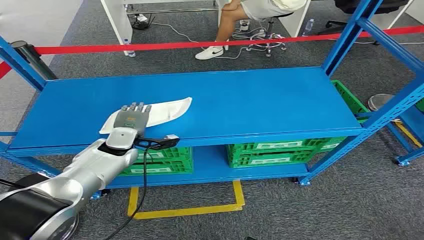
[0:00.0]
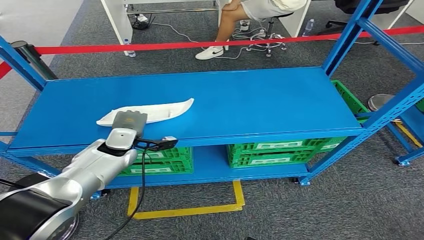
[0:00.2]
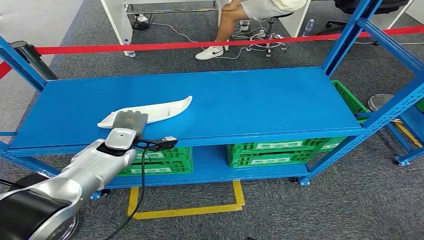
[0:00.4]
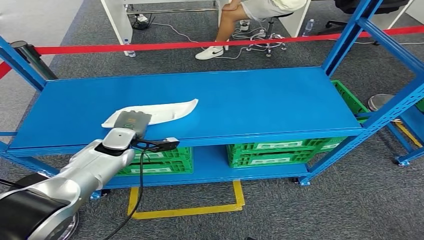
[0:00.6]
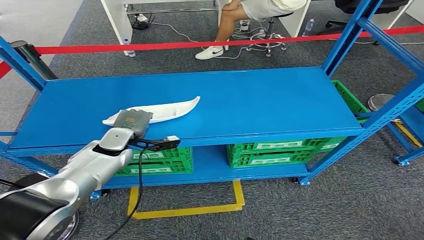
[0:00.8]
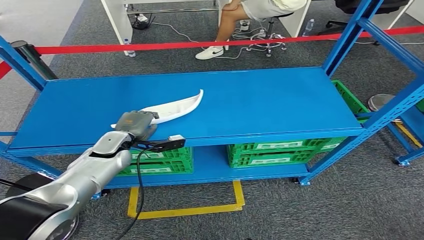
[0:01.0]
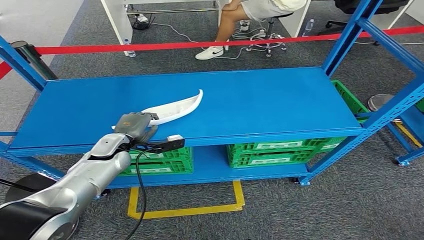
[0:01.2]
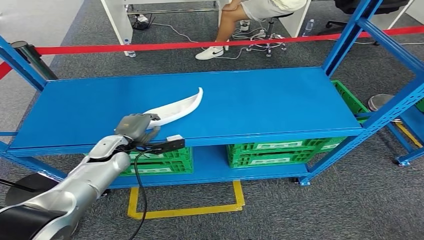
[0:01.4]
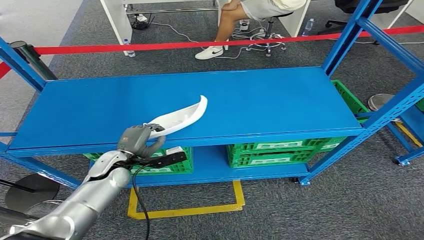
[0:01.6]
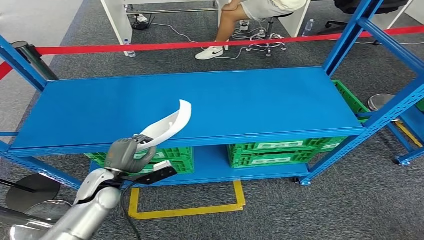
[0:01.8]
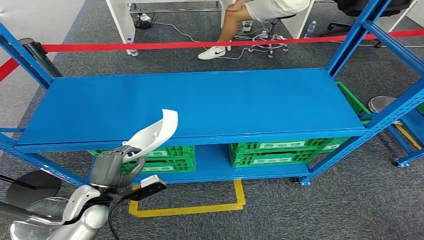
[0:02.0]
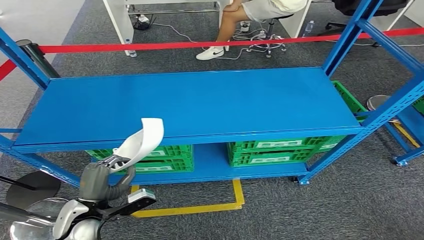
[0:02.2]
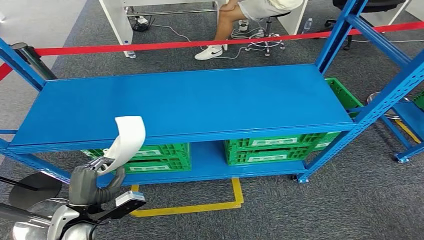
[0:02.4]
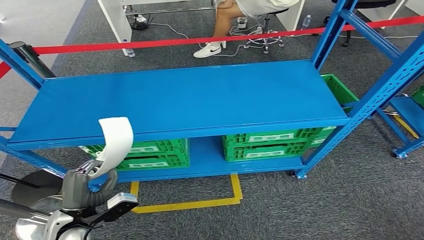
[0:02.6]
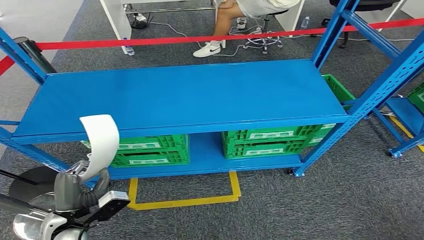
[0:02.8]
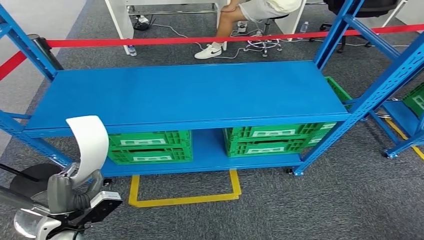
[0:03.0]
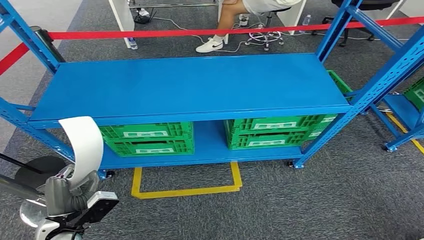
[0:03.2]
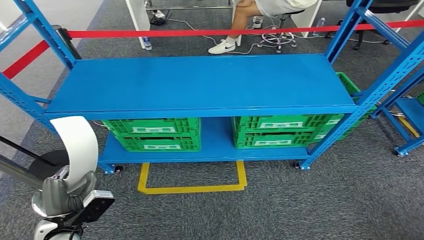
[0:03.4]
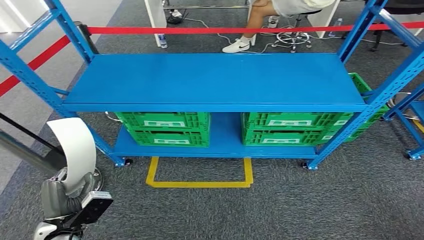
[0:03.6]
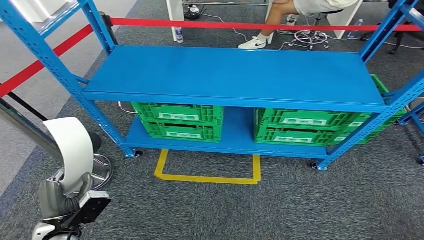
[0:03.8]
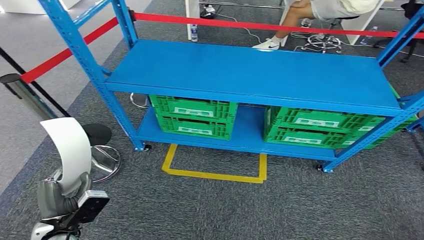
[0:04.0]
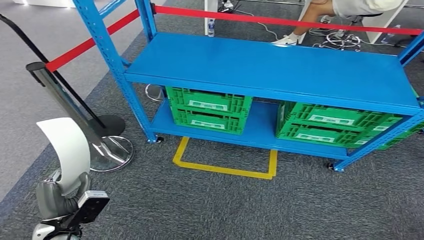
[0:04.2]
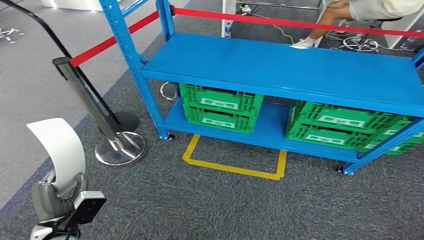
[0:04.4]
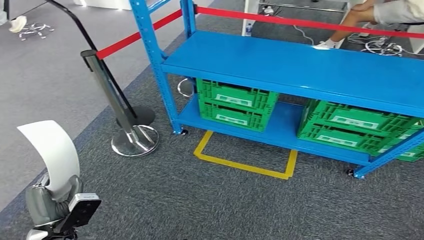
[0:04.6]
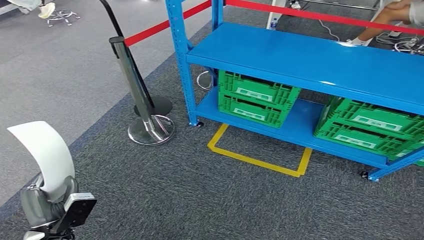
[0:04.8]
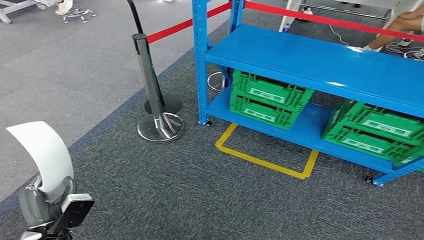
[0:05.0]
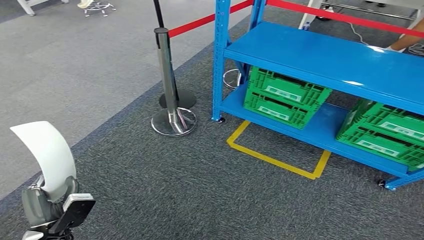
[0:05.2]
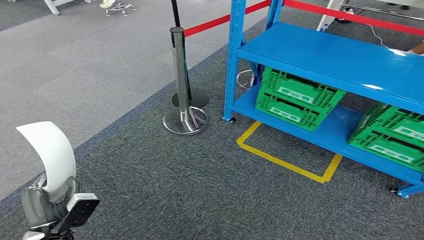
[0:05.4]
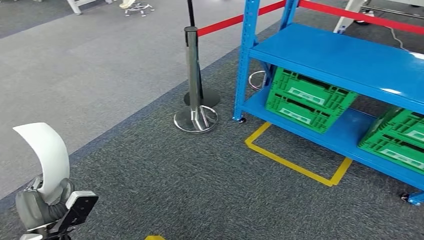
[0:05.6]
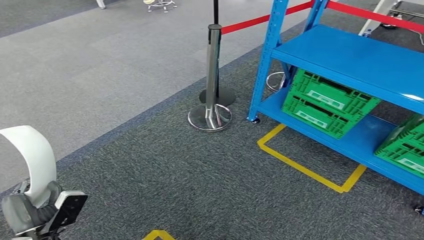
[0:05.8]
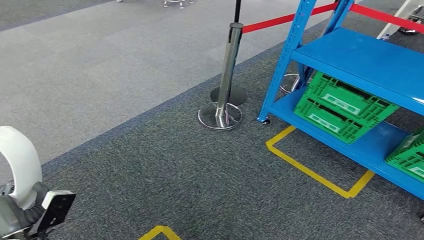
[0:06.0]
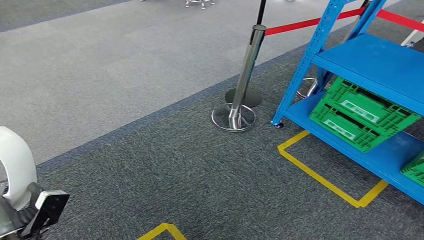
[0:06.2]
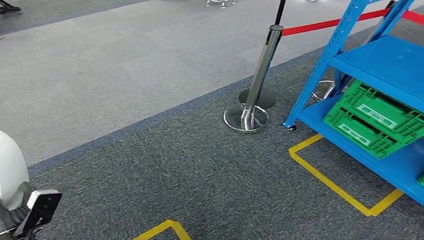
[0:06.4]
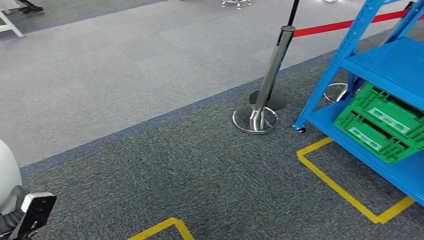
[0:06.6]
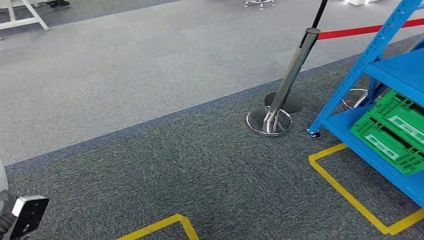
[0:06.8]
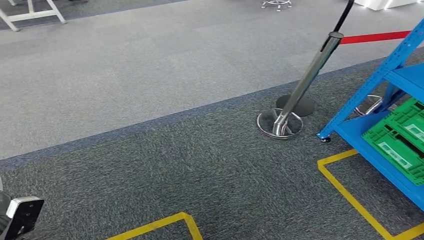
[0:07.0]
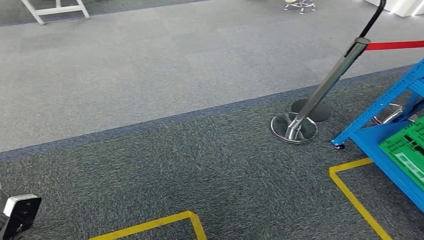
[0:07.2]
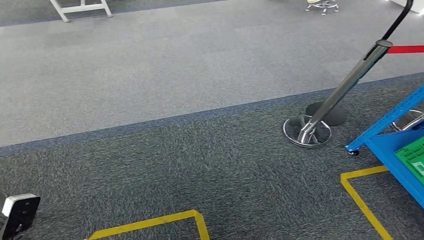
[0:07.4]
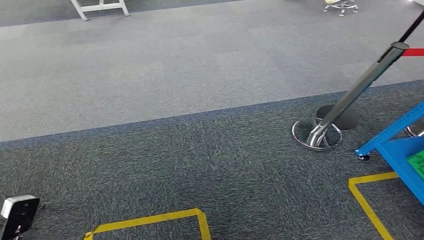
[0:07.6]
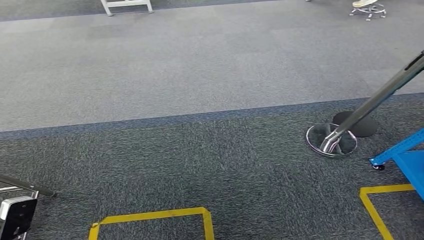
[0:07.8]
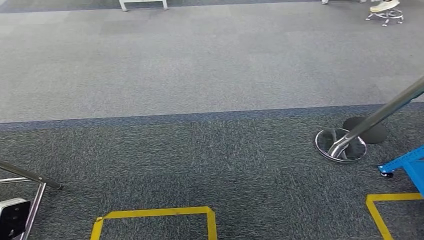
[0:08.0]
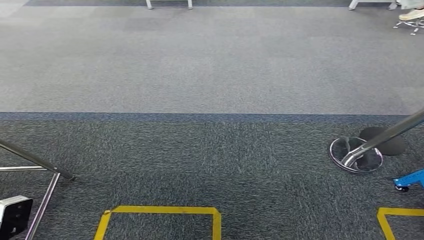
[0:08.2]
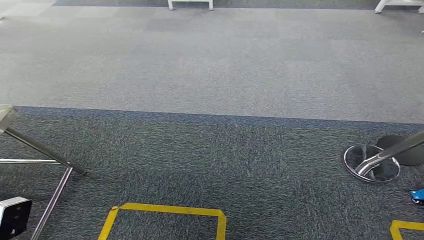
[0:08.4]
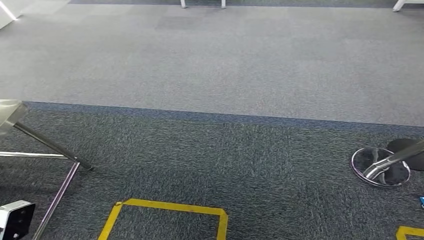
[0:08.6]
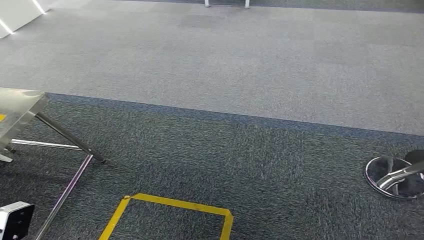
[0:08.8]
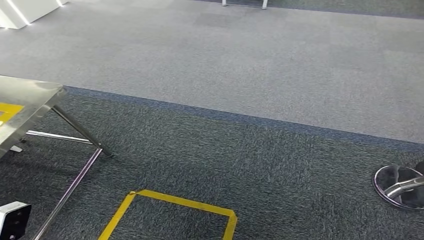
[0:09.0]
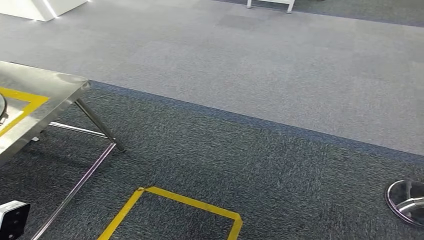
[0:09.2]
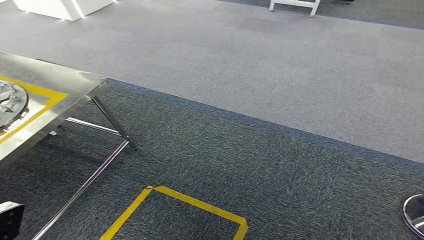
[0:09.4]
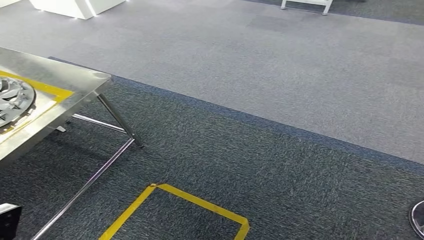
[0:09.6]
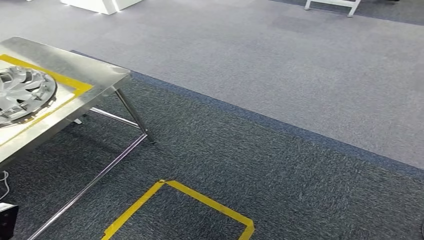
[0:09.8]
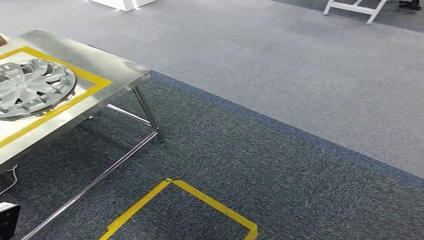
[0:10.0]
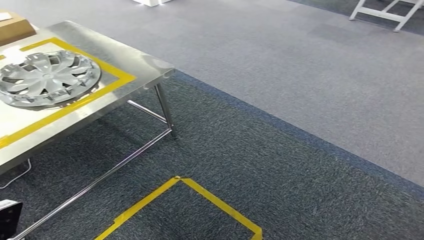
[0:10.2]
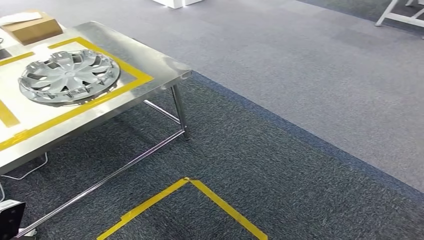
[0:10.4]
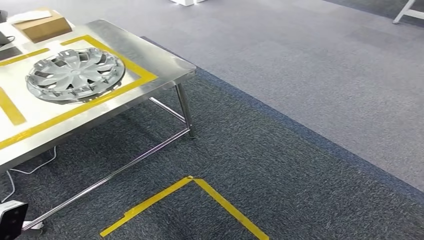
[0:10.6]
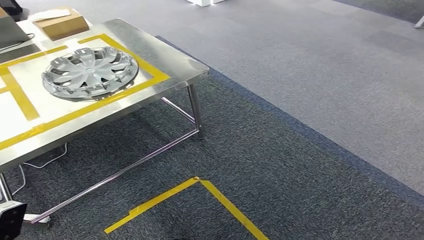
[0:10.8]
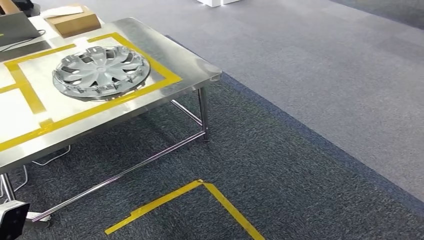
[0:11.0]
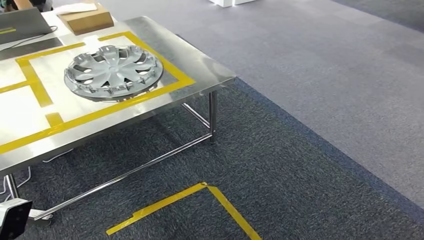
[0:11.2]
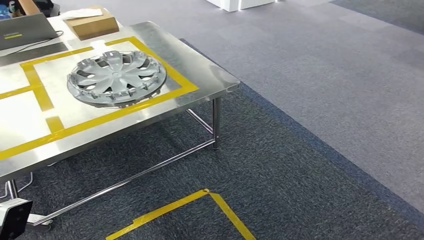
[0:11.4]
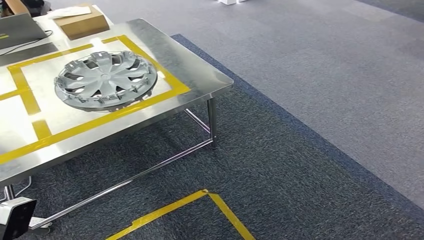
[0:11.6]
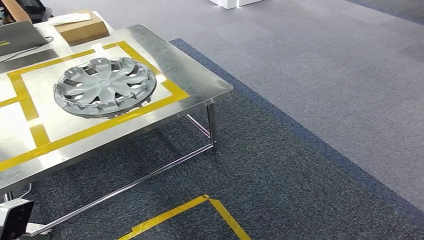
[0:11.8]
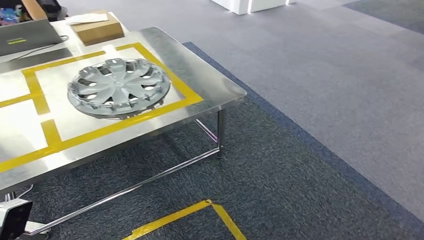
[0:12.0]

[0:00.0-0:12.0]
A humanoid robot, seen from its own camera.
Step, 0:00.0 to 0:02.2: Take small components from the rack.

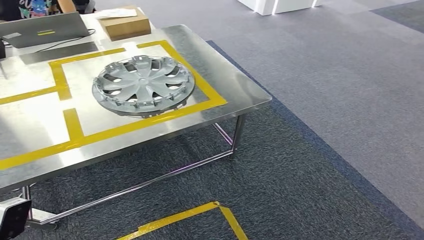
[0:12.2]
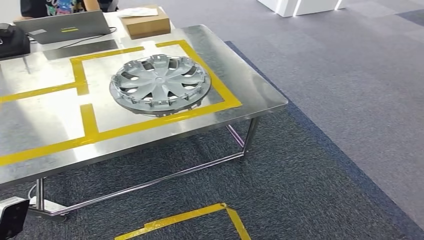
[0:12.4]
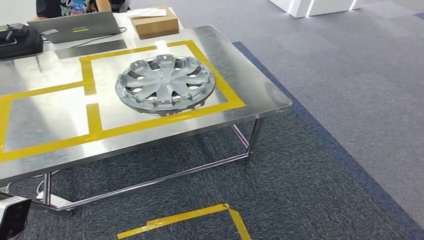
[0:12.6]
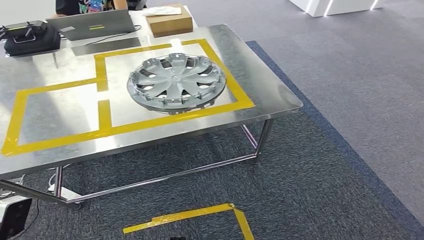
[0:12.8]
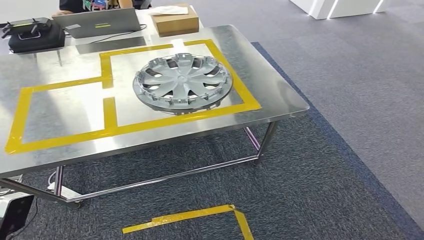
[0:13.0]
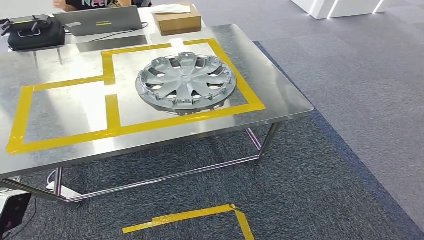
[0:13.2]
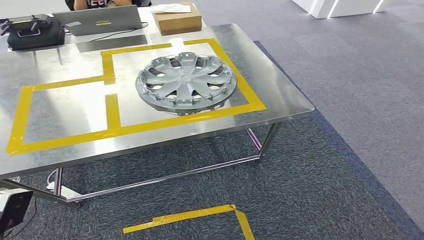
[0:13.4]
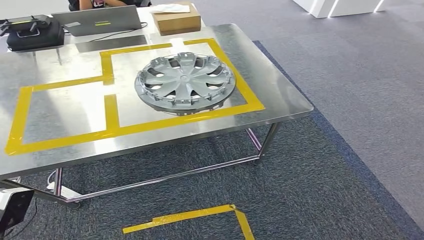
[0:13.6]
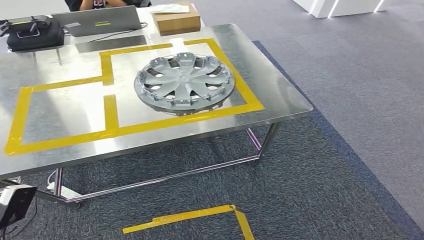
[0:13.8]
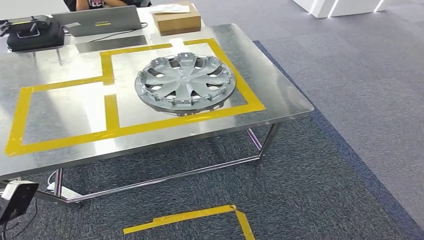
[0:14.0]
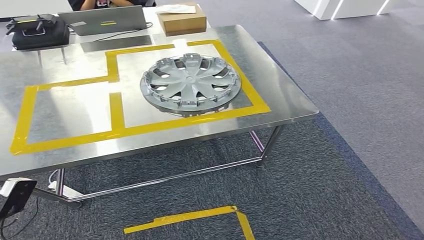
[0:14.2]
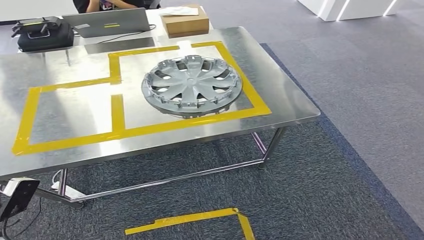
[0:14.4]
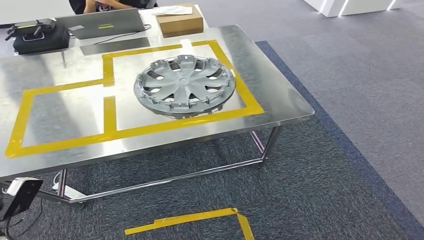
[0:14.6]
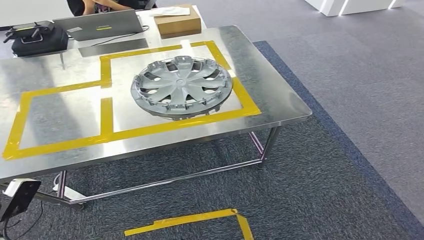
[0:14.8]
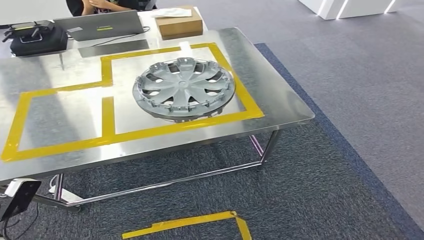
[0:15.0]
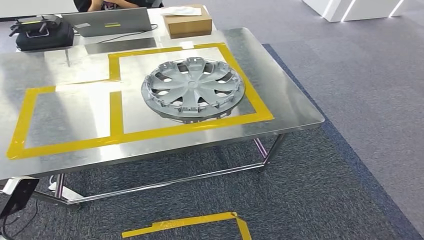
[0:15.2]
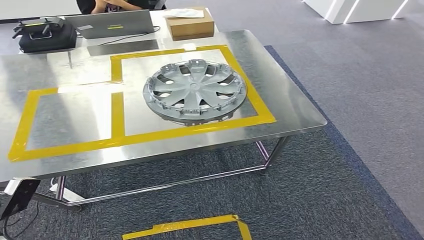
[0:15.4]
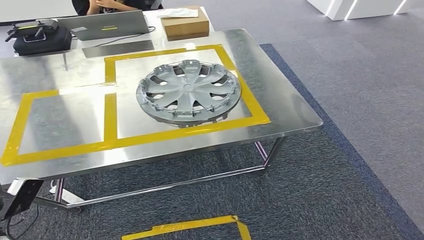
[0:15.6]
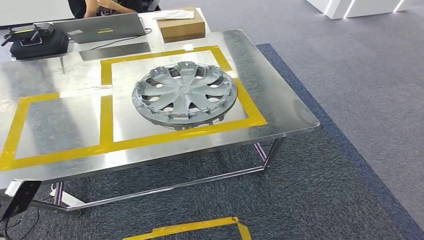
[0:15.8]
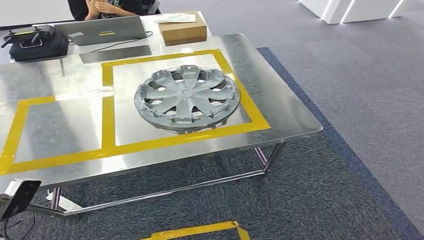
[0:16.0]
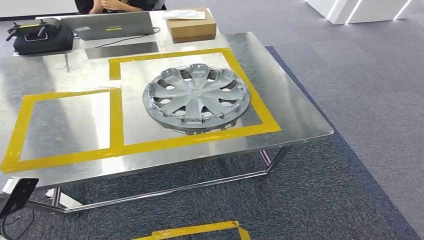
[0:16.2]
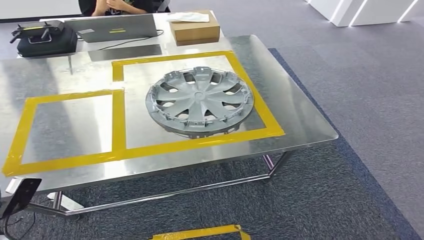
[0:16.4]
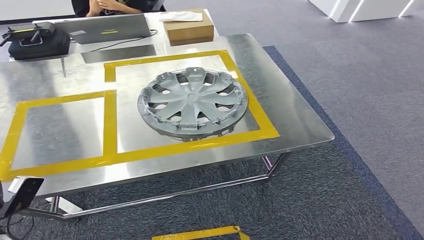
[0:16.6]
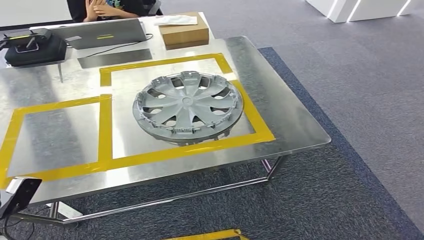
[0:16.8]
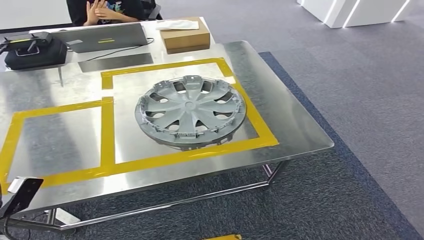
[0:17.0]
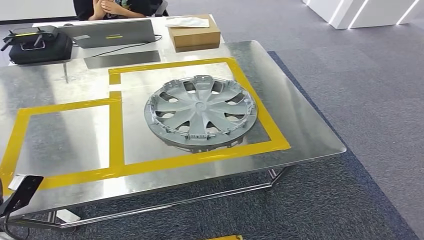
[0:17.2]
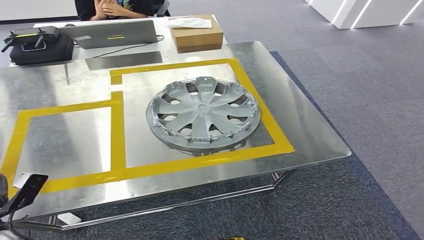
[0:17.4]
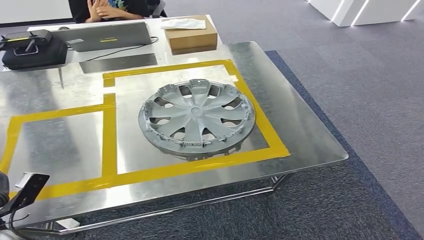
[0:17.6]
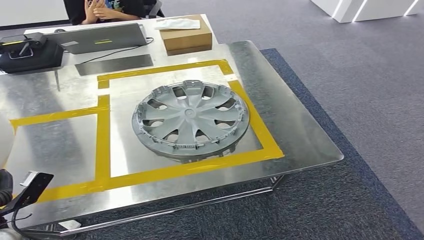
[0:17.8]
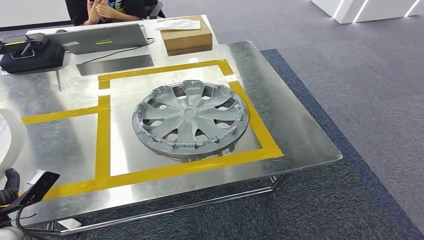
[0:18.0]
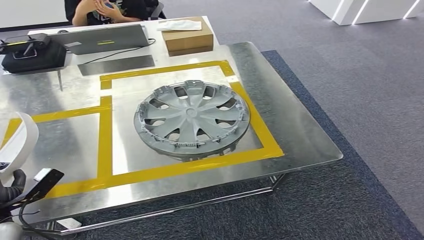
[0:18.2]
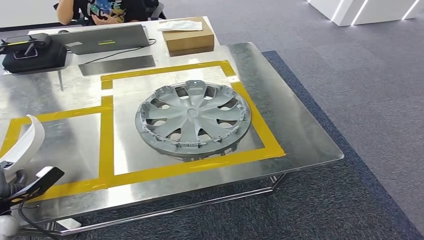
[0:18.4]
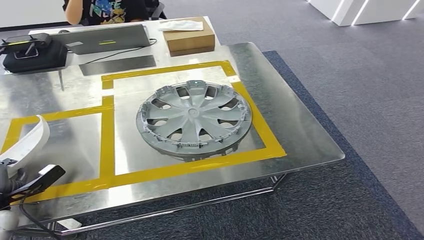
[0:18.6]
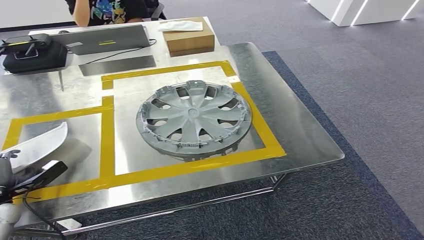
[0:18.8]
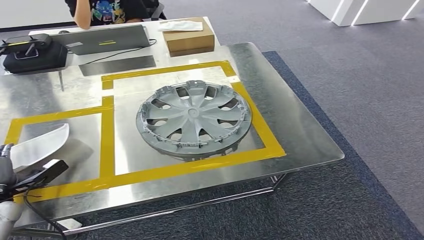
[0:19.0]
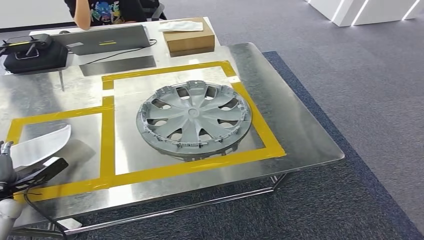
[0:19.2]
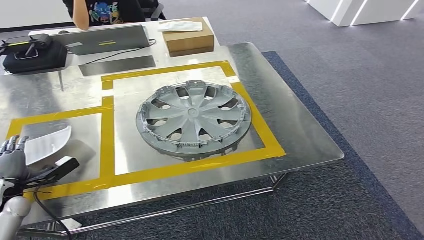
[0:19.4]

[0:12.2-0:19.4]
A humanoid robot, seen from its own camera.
Step, 0:12.2 to 0:14.8: Move the small parts to the workbench.
0:18.0 to 0:19.4: The left hand goes some 10 cm forward.
